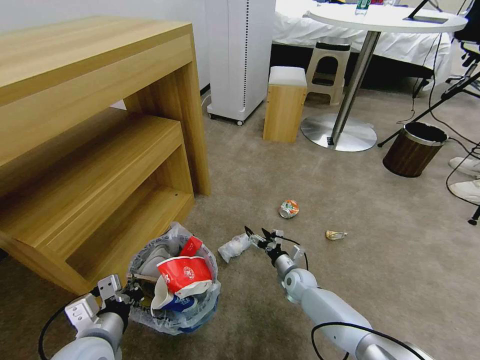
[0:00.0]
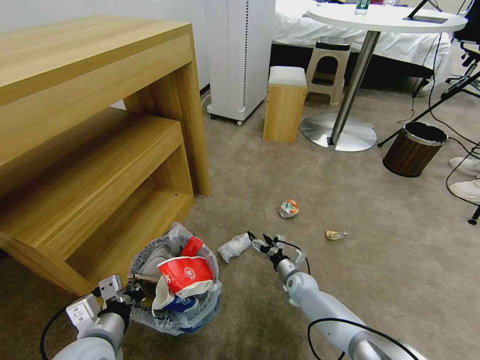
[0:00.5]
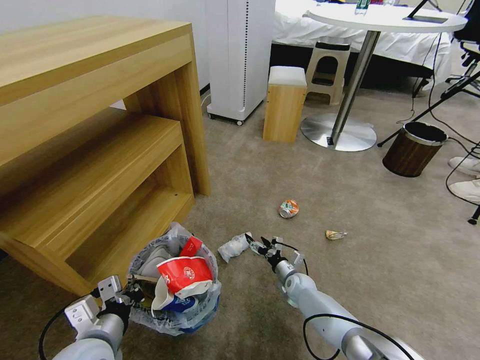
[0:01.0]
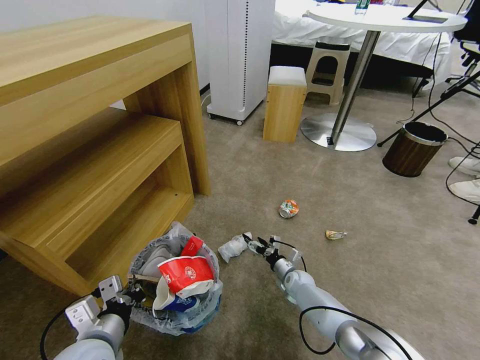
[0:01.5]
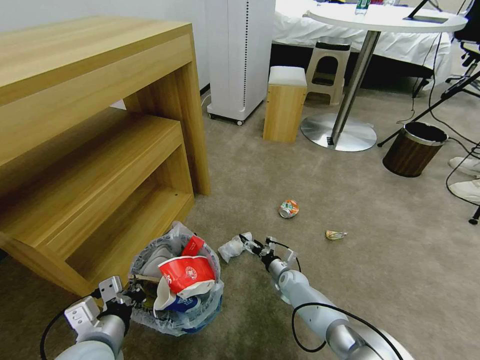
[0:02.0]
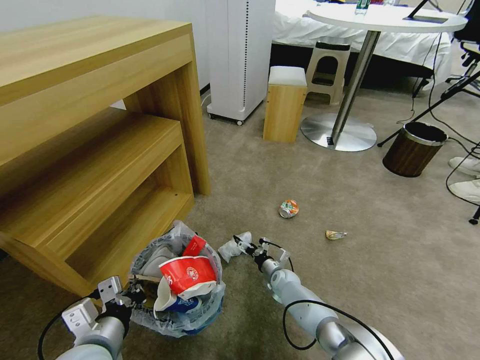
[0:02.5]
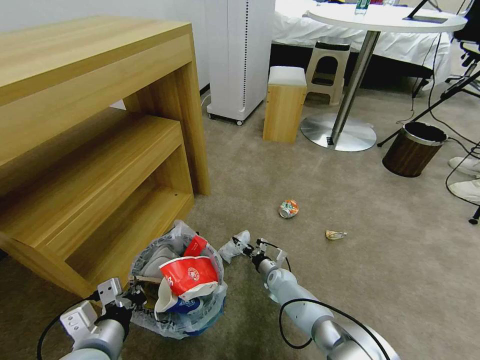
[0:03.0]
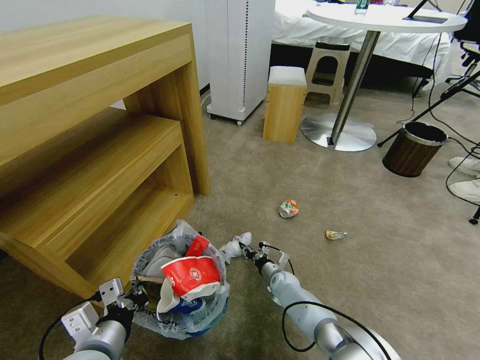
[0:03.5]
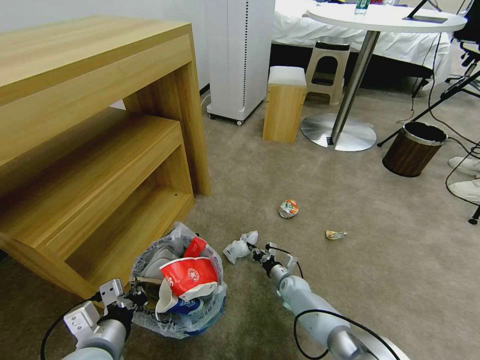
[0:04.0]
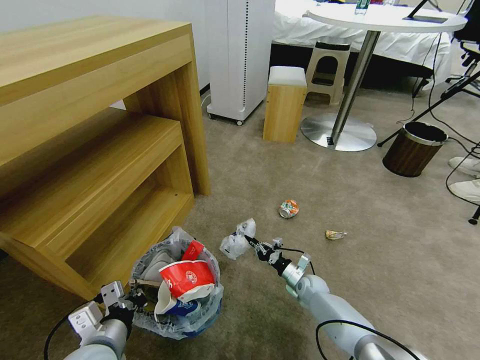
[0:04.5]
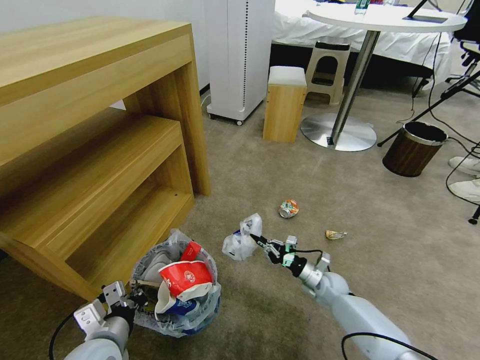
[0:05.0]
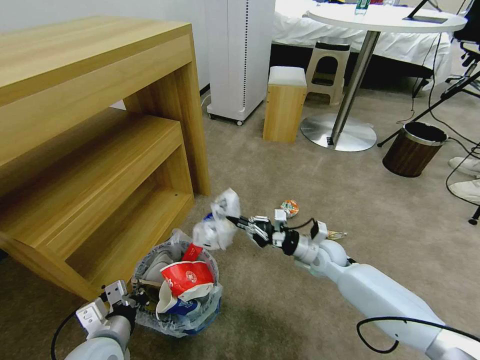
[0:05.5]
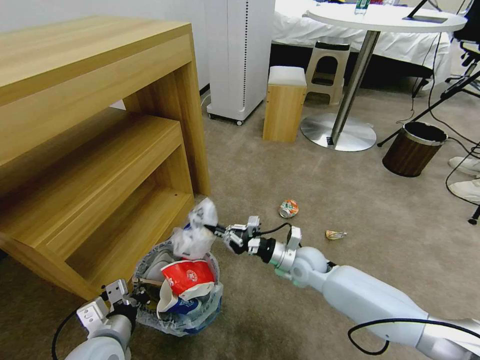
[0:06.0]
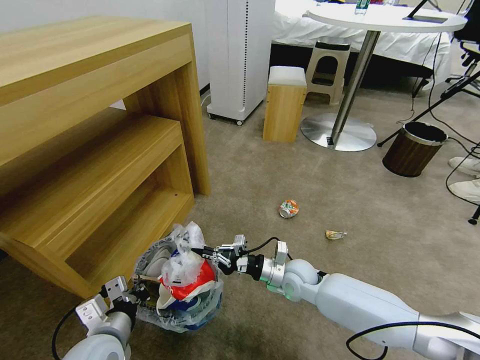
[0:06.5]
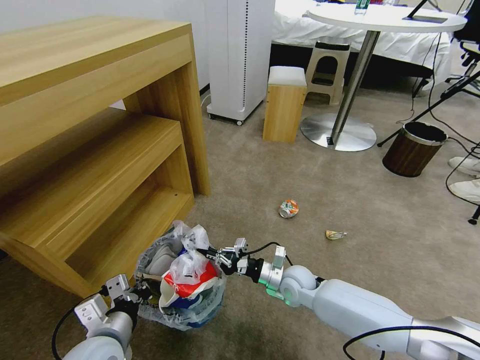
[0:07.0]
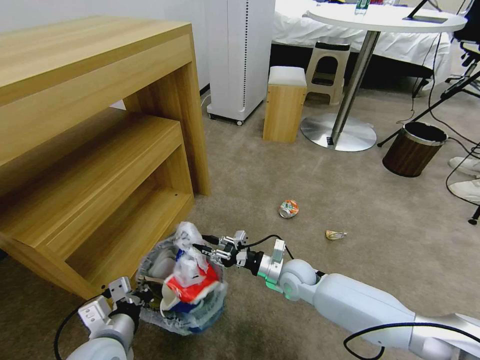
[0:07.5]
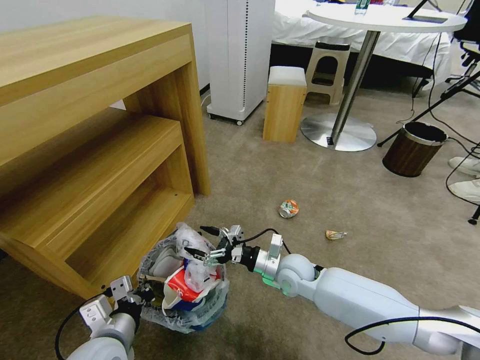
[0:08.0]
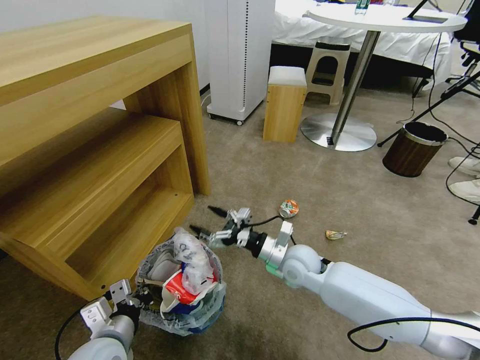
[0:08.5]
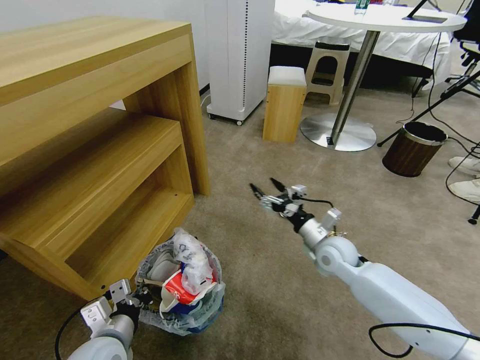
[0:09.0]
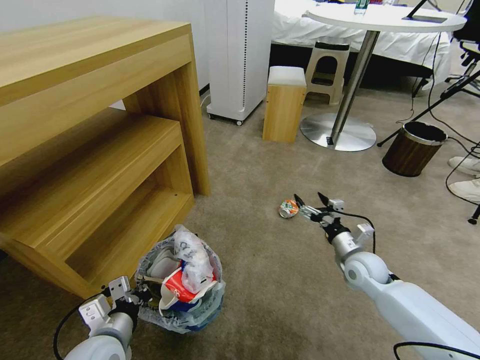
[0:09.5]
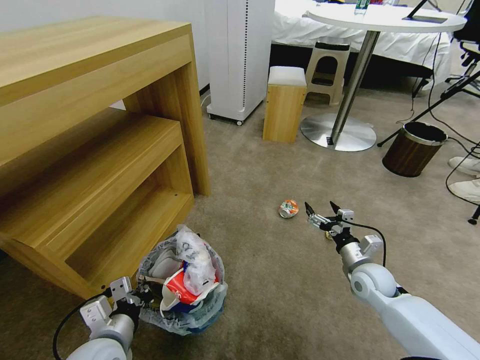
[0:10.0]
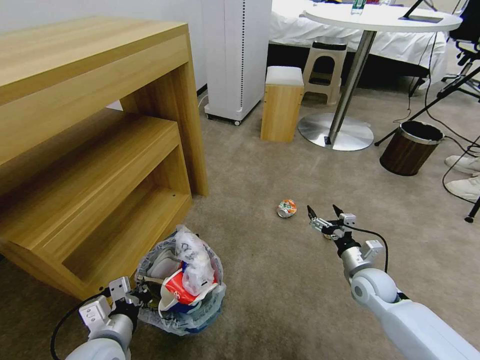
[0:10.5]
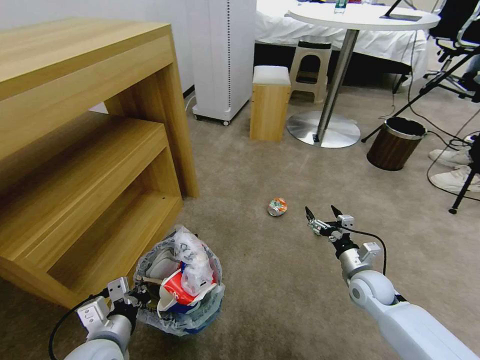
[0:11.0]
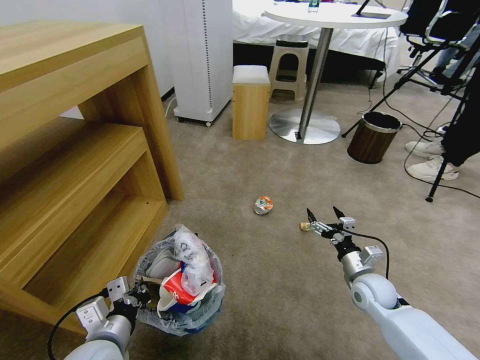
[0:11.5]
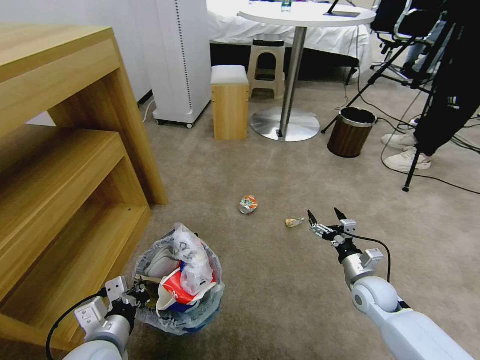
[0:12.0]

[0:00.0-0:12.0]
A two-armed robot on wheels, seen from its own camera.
Task of the whole recording: Pick up the trash bin and place the garbage on the floor into it.
0:00.0 to 0:02.0: The grippers make only small movements.
0:02.0 to 0:04.0: The right gripper closes its fingers.
0:04.0 to 0:06.0: The right gripper heads upward, covering roughly 20 cm.
0:06.0 to 0:08.0: The right gripper opens its fingers.
0:08.0 to 0:10.0: The right gripper heads to the right, covering some 20 cm.

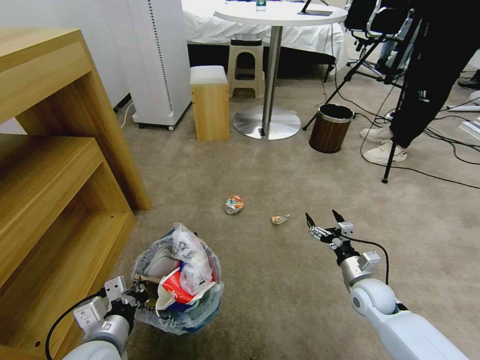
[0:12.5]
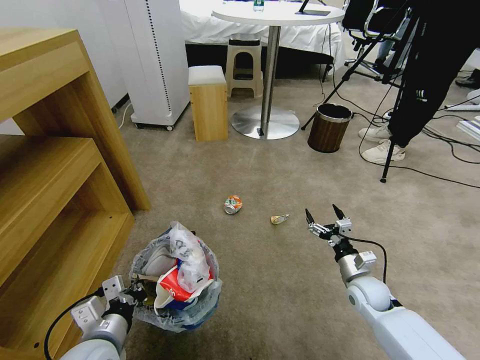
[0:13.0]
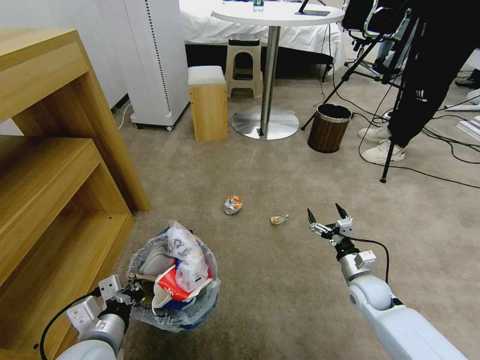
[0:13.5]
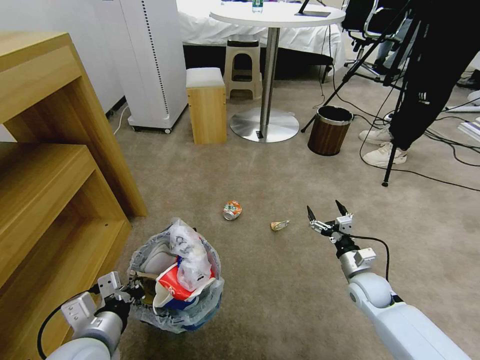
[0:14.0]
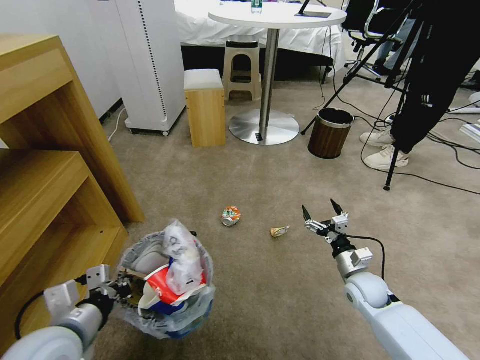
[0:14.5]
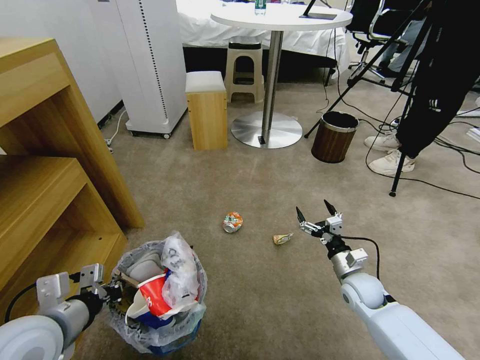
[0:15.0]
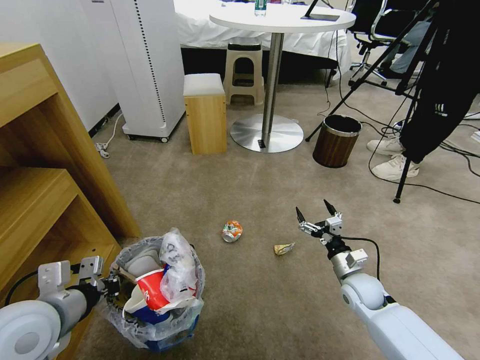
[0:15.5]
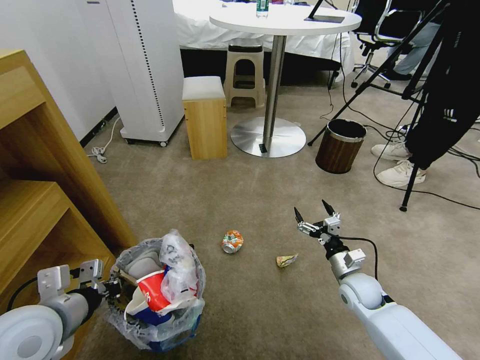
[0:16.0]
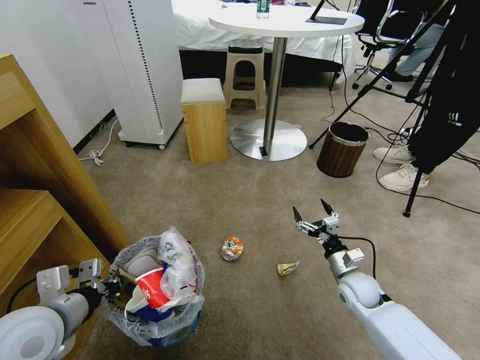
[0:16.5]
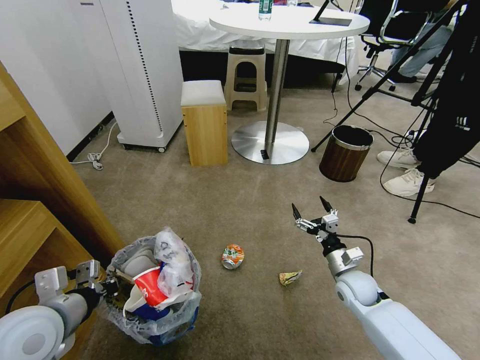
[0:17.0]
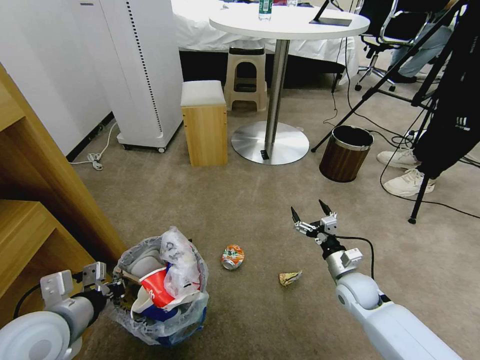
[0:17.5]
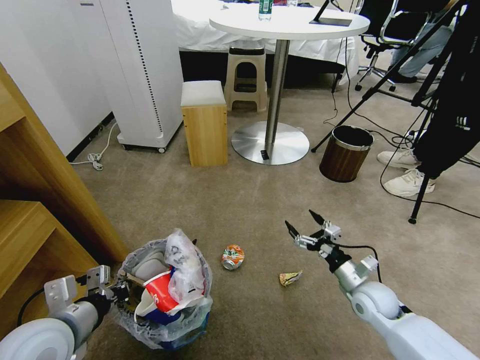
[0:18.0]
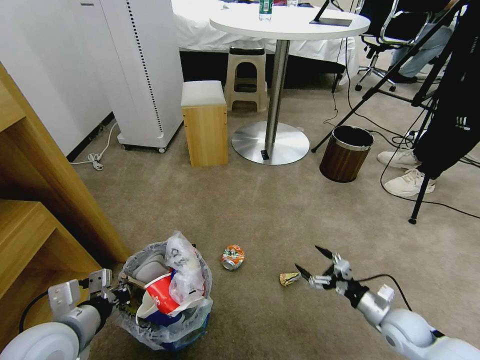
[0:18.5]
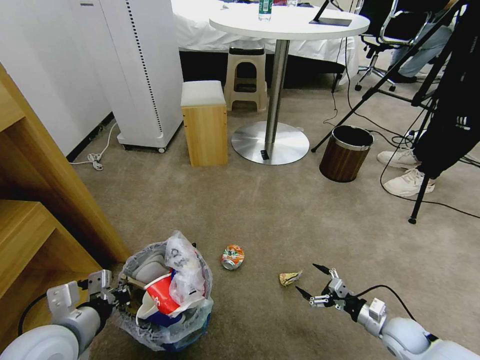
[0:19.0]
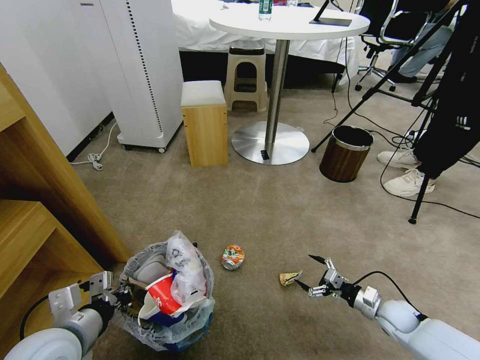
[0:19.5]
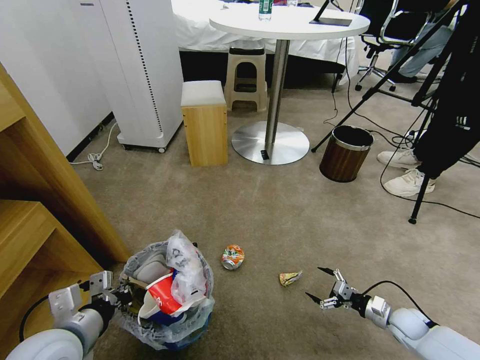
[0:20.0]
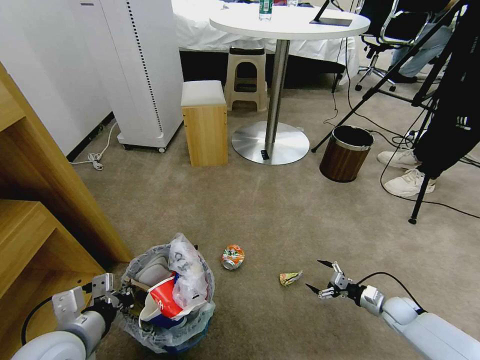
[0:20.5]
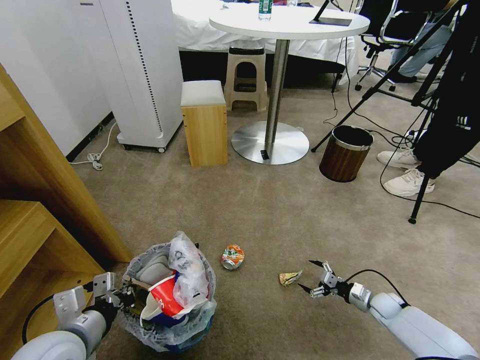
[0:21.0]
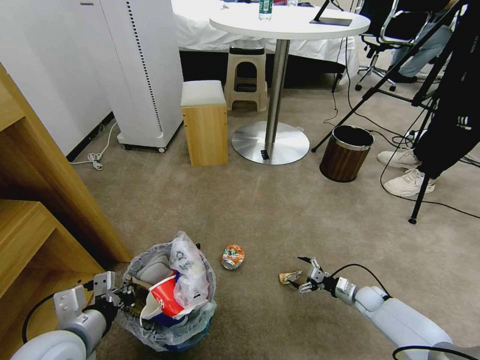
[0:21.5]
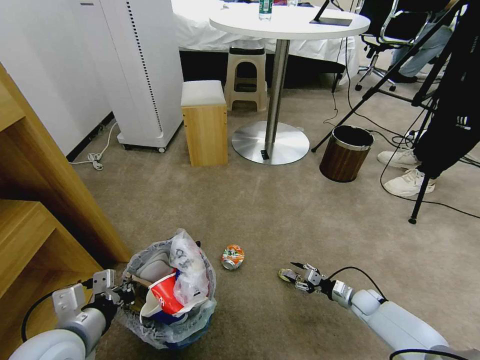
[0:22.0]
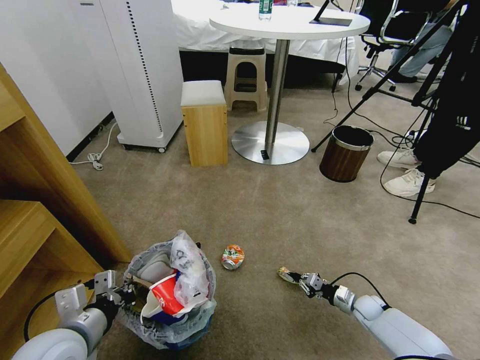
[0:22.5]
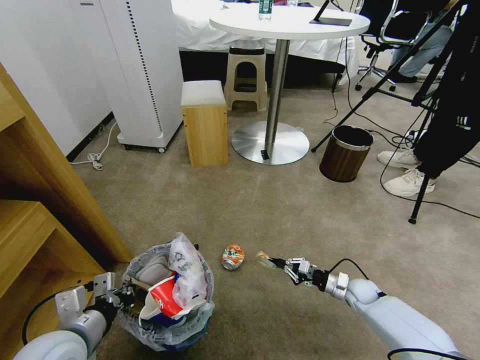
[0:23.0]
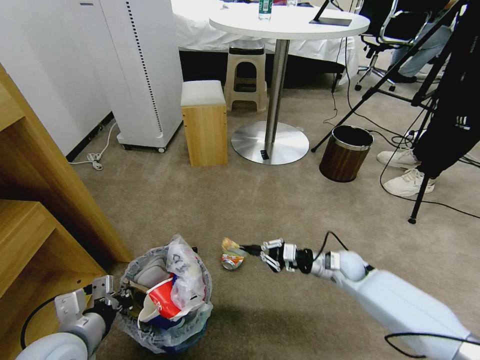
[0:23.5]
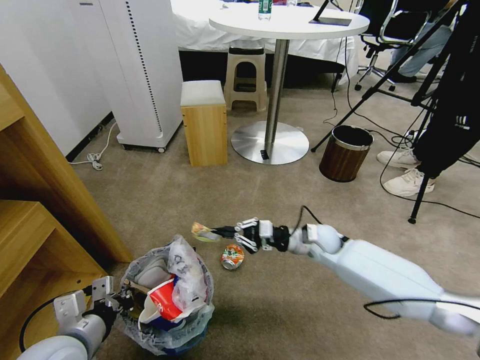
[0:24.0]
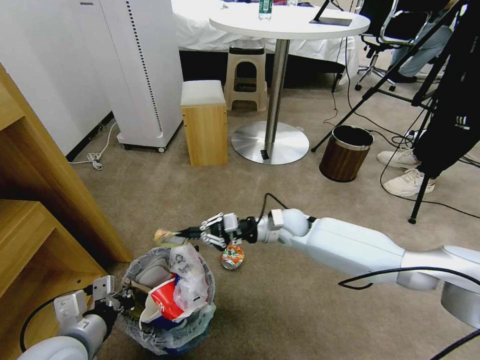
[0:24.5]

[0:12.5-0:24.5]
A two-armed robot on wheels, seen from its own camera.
Task of the whole recording: Pick up the trash bin and place the garbage on the floor into it.
0:12.5 to 0:14.5: The left gripper is displaced upward by some 5 cm.
0:14.5 to 0:16.5: The left gripper shifts by about 5 cm.
0:16.5 to 0:18.5: The right gripper travels backward and to the right by approximately 10 cm.
0:18.5 to 0:20.5: The right gripper moves downward, to the right and forward, about 15 cm.
0:20.5 to 0:22.5: The right gripper heads to the left, covering about 5 cm, and closes.
0:22.5 to 0:24.5: The right gripper goes some 40 cm to the left, upward and forward.

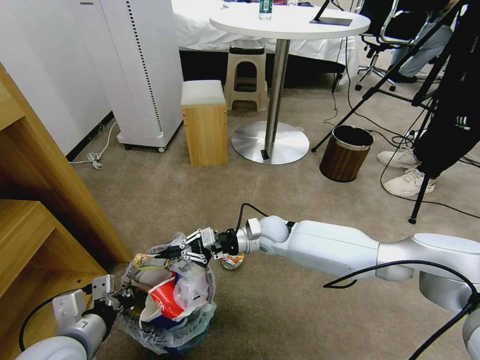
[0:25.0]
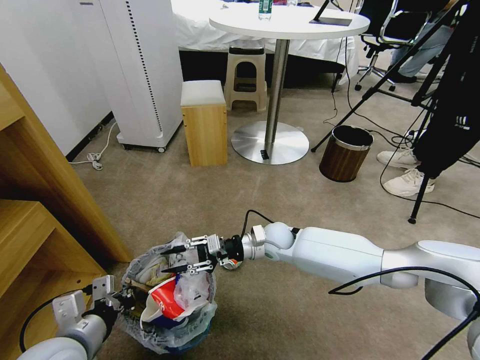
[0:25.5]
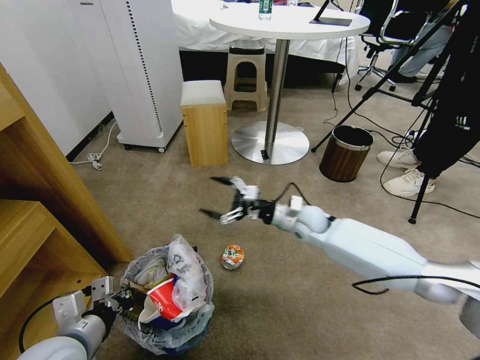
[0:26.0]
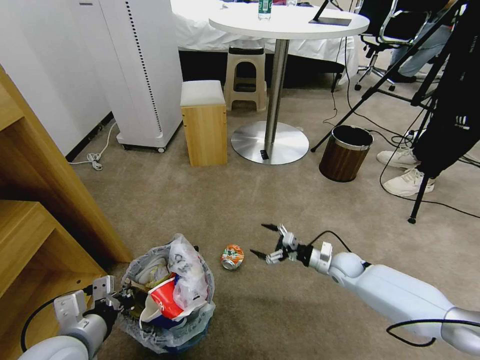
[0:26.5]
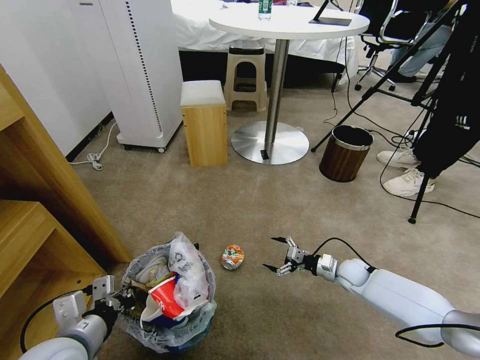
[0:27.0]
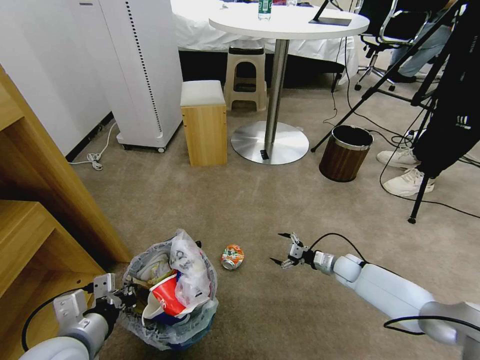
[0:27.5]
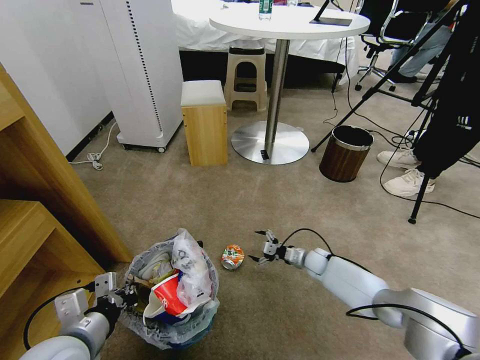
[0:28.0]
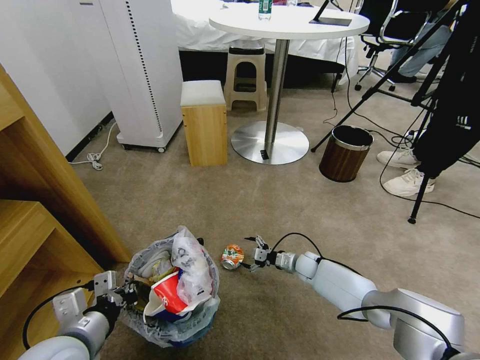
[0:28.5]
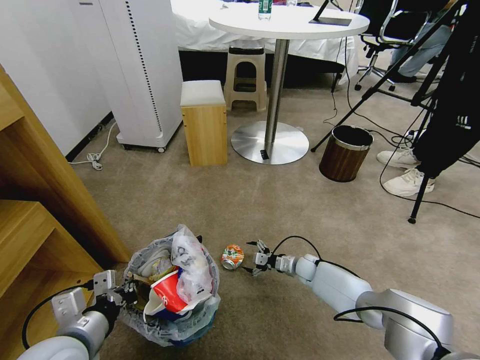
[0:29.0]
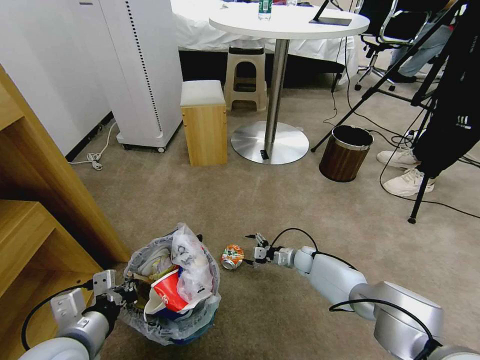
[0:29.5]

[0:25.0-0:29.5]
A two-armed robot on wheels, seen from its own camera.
Task of the whole recording: Pick up the trash bin and place the garbage on the floor into it.
0:25.0 to 0:27.0: The right gripper heads to the right and downward, covering roughly 30 cm, and opens its fingers.
0:27.0 to 0:29.5: The right gripper goes approximately 15 cm to the left and forward.
